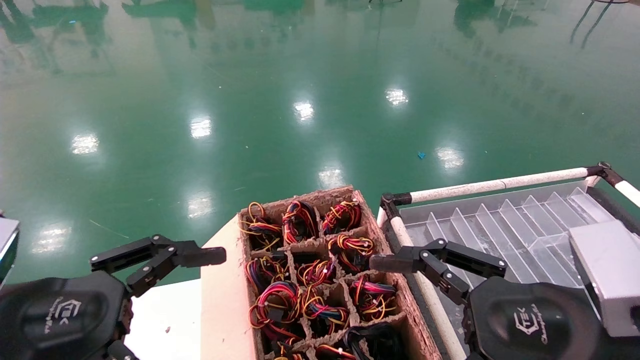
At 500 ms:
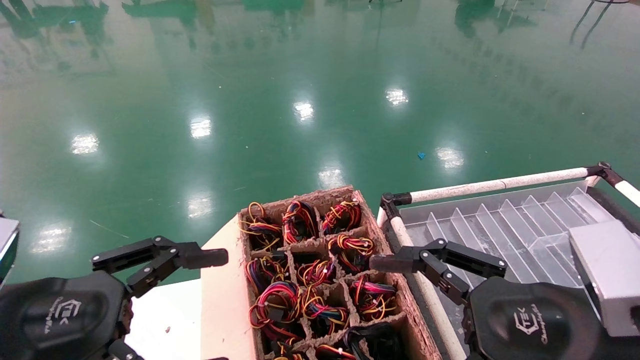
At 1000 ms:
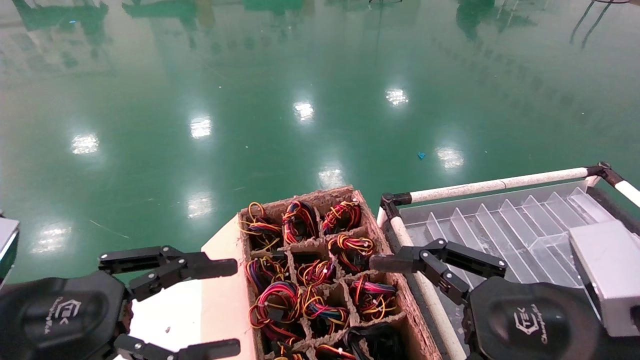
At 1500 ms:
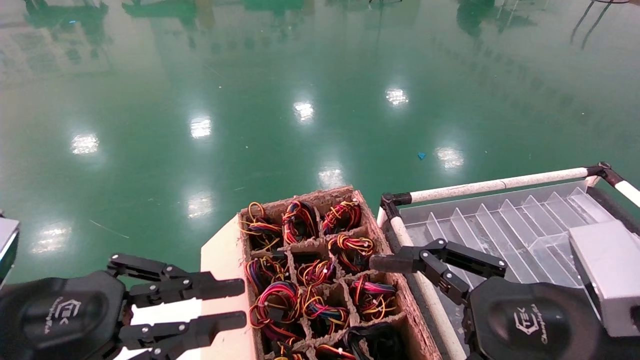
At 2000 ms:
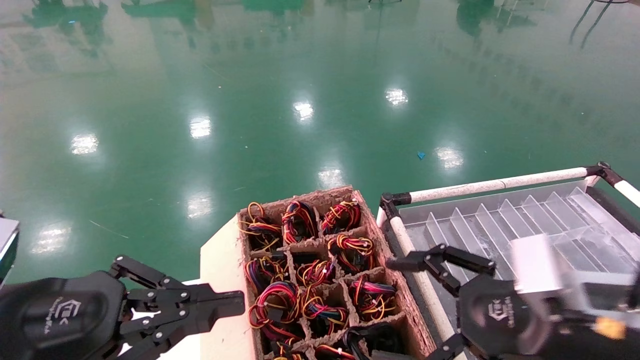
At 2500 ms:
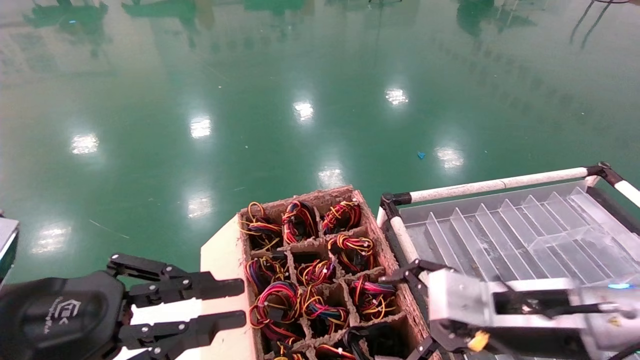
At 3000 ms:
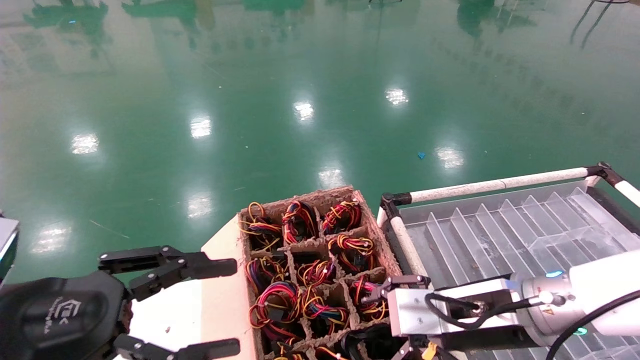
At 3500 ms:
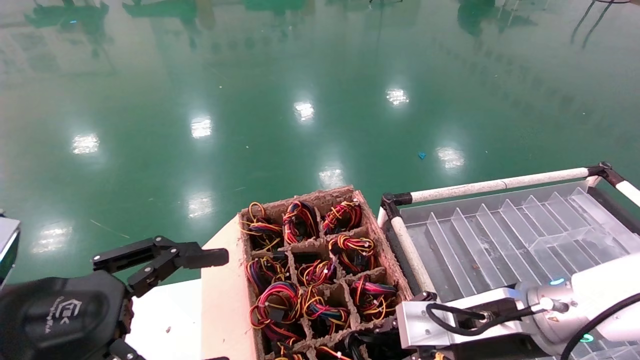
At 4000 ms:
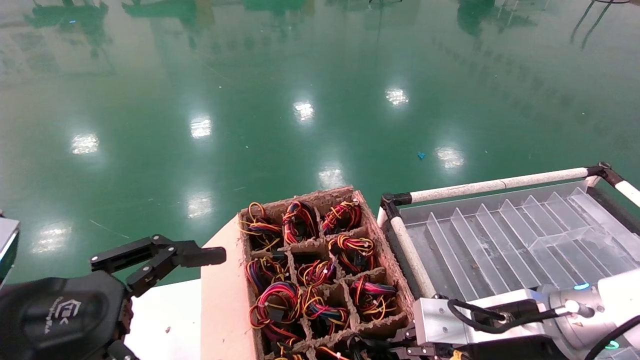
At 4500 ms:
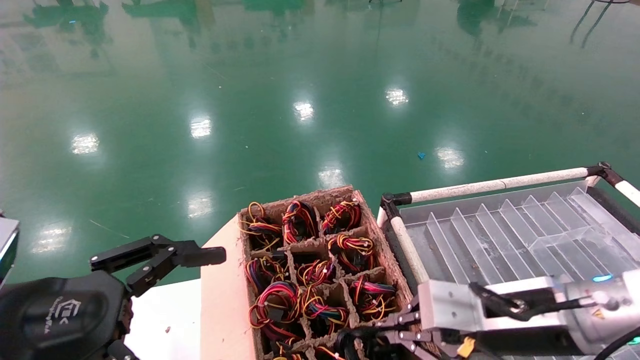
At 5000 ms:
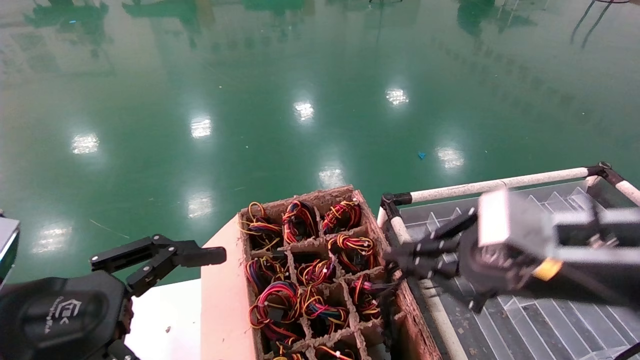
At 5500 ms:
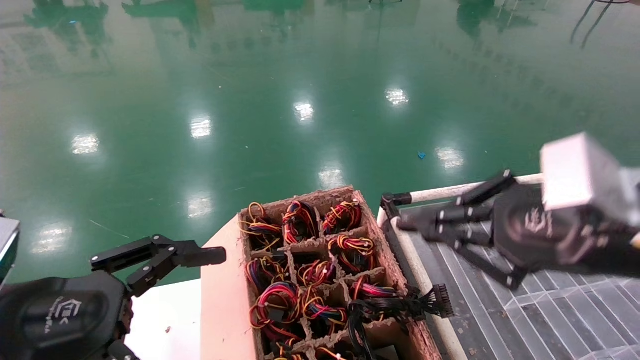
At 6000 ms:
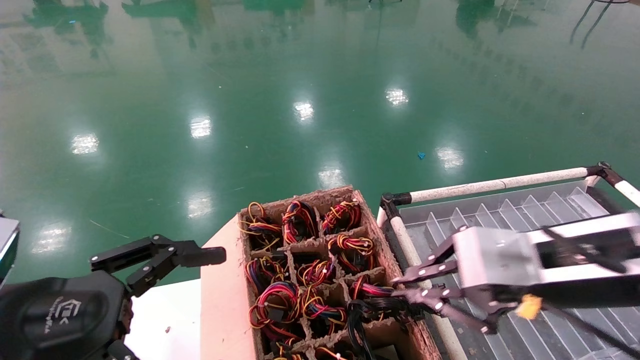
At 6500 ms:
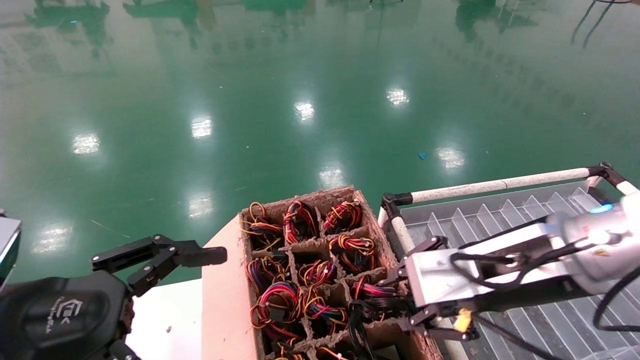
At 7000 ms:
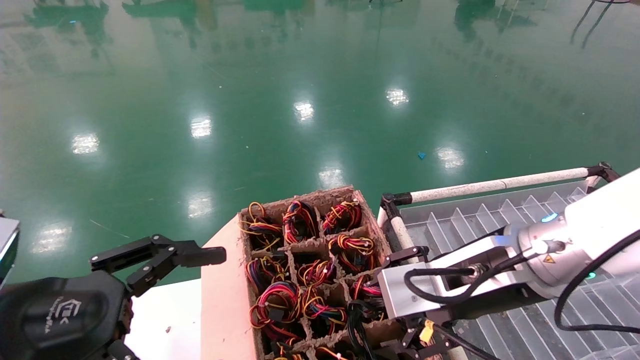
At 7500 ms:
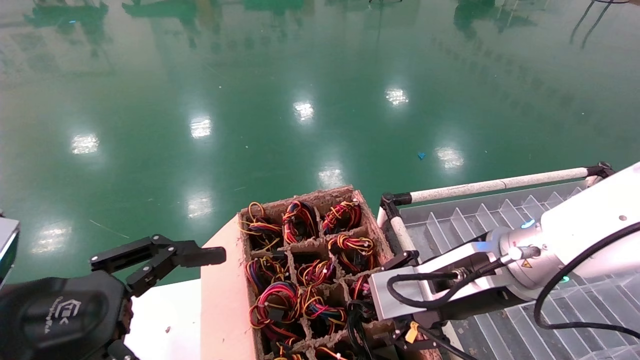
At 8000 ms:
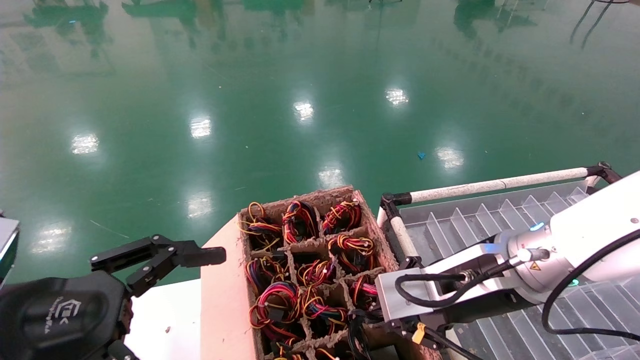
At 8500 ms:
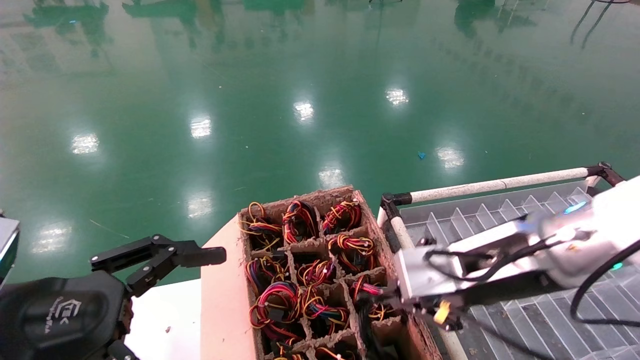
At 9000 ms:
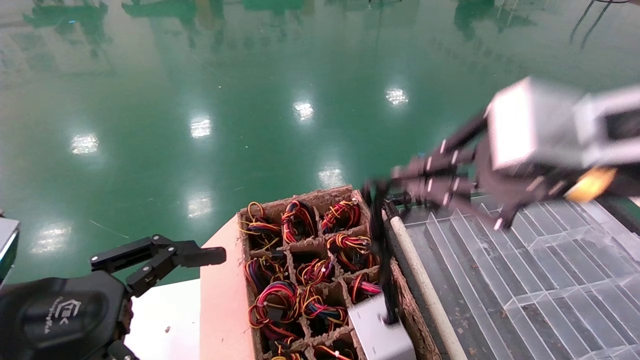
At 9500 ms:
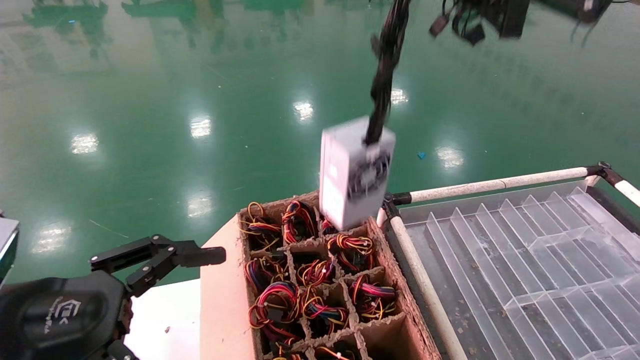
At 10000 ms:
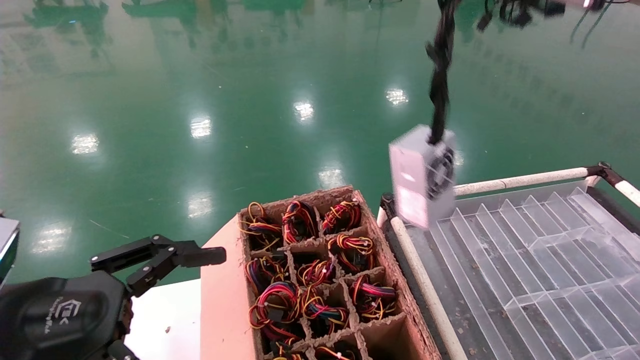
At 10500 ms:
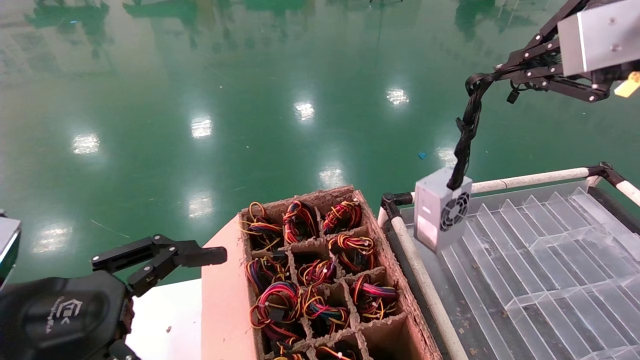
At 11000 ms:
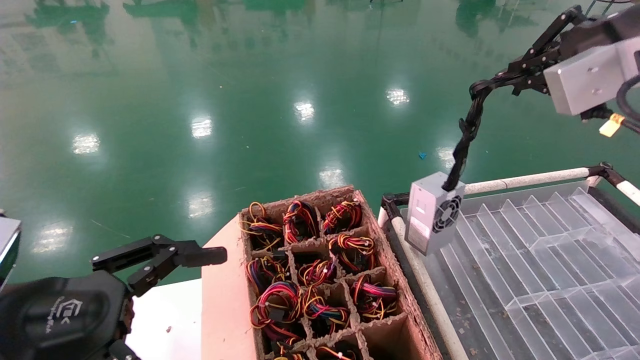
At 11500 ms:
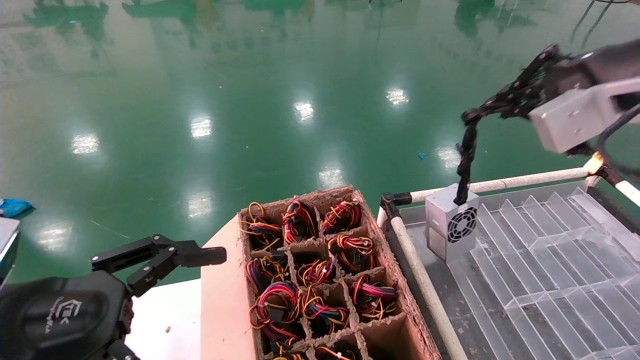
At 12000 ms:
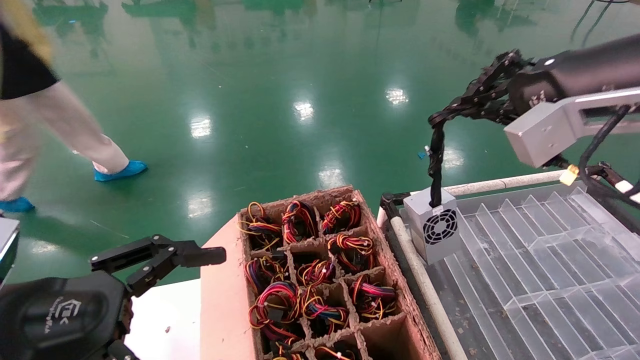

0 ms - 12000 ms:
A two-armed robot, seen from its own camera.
Step, 1000 ms - 8000 ms: Grab and lift the power supply from the large box.
0 ms - 2000 ms: The left gripper closes its fingers.
2000 ms - 4000 ms: The right gripper heads forward, covering about 5 cm, and closes its fingers, while the left gripper opens.
4000 ms - 6000 ms: The right gripper shifts some 10 cm upward and backward.
6000 ms - 8000 ms: The right gripper moves to the left and forward, roughly 10 cm, and opens, then closes once more.
8000 ms - 10000 ms: The right gripper is displaced upward by approximately 30 cm.
10000 ms - 12000 ms: The right gripper travels forward and downward by approximately 15 cm.

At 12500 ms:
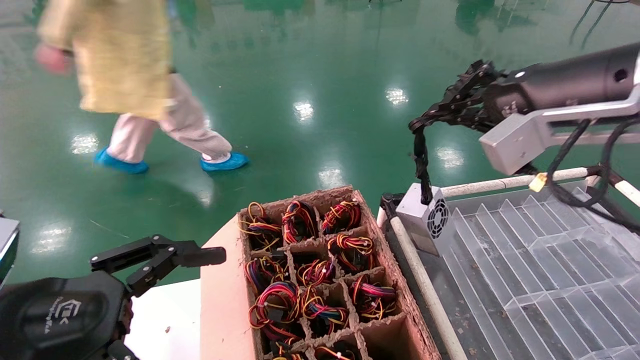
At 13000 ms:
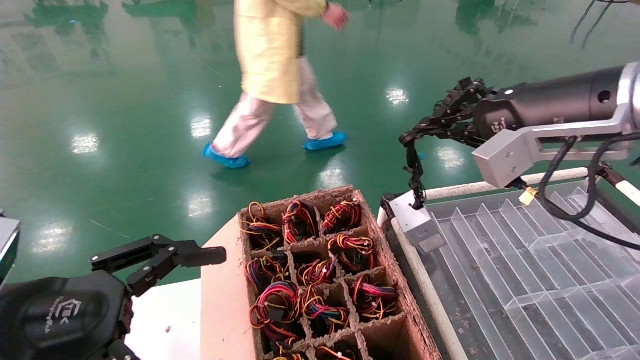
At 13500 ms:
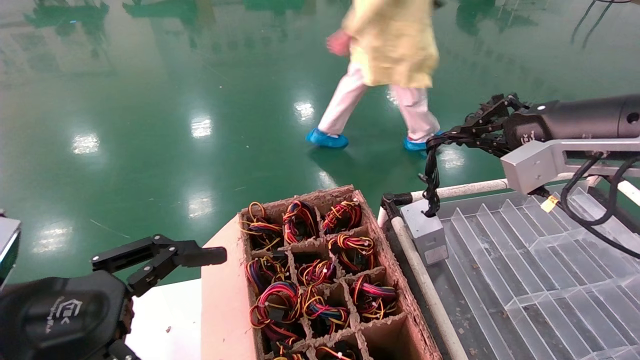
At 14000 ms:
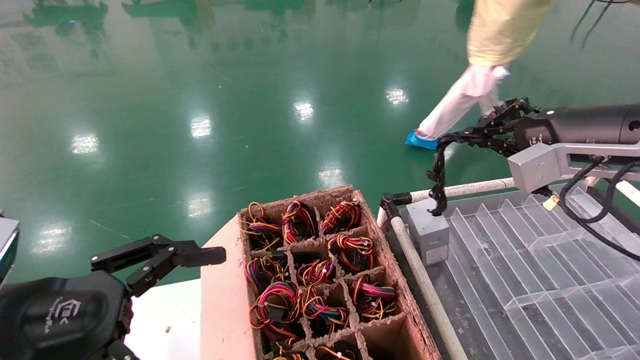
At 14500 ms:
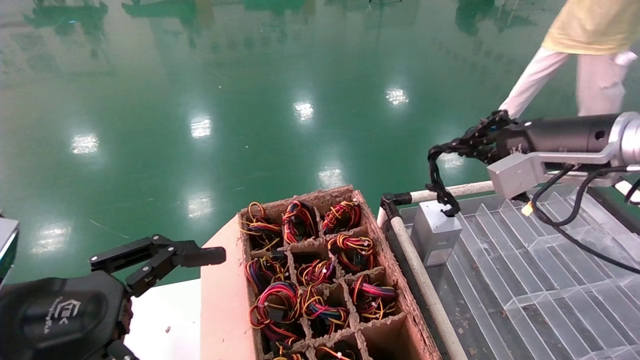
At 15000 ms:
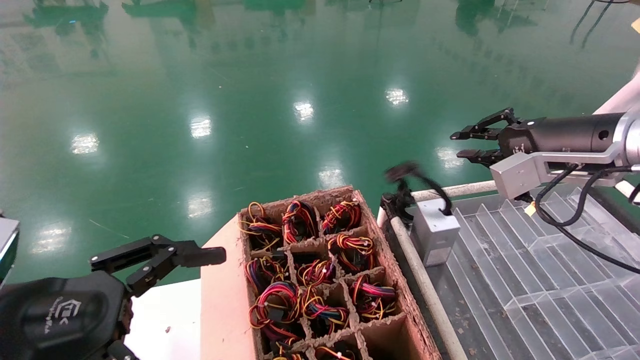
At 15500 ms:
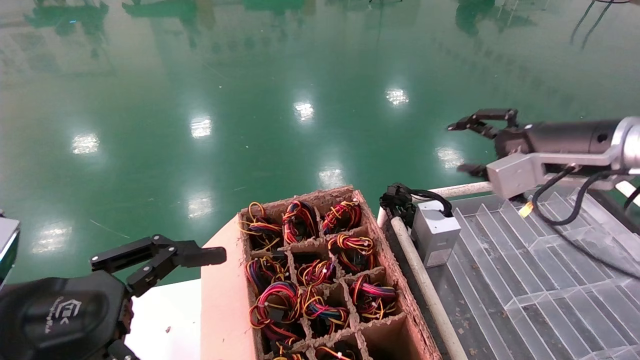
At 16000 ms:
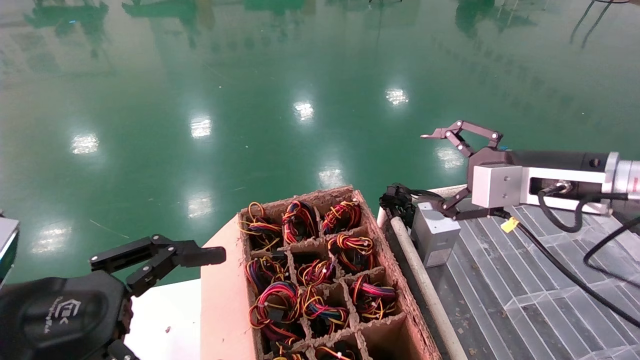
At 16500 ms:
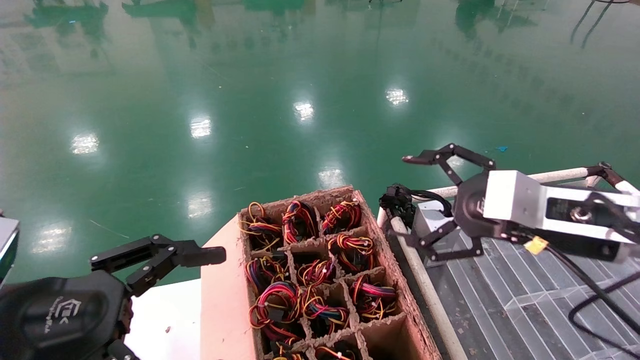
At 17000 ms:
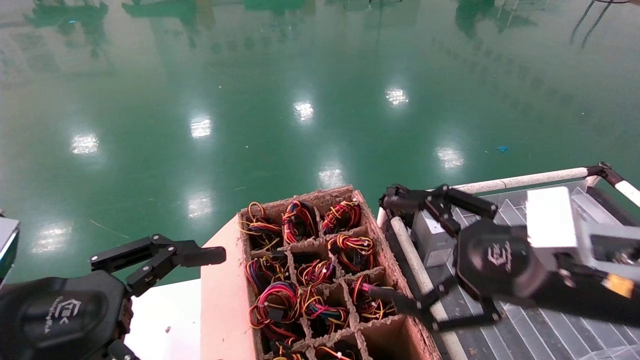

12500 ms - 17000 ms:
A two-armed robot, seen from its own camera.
Step, 12500 ms - 15000 ms: Place the power supply on the operating table.
12500 ms - 14500 ms: The right gripper shifts approximately 10 cm forward, to the right and downward.
14500 ms - 17000 ms: The right gripper travels backward, downward and to the left by some 20 cm, and opens.
